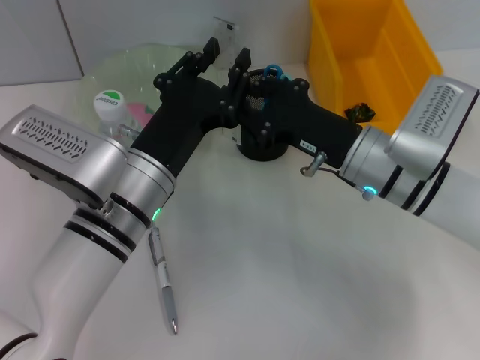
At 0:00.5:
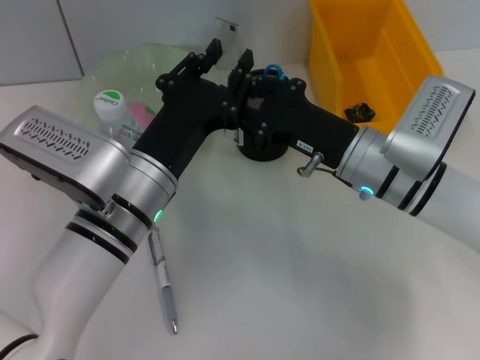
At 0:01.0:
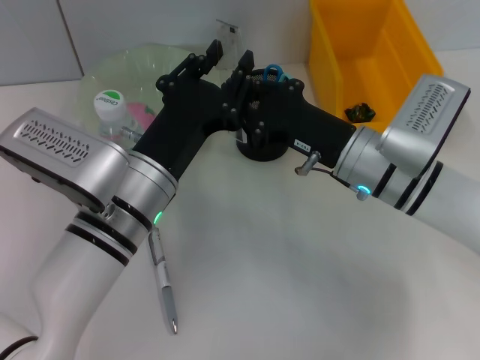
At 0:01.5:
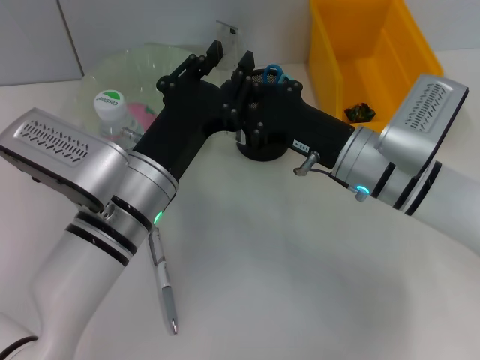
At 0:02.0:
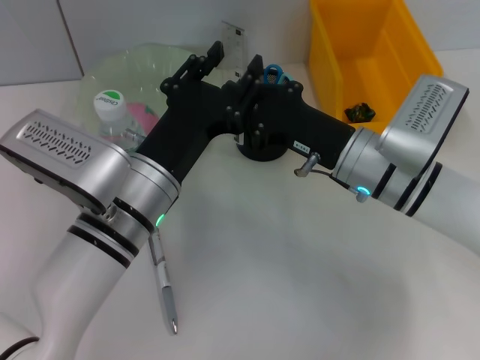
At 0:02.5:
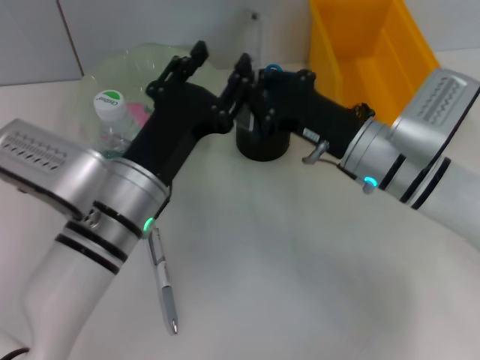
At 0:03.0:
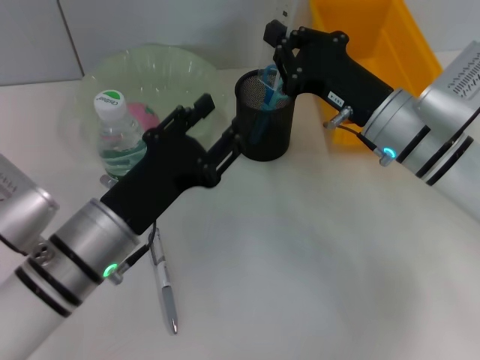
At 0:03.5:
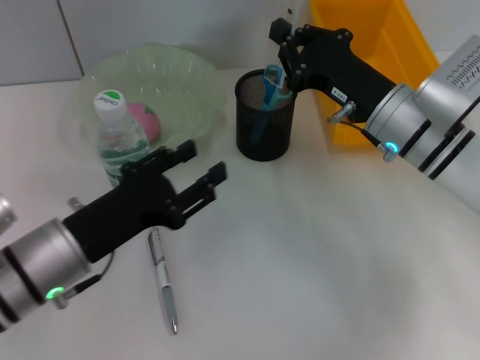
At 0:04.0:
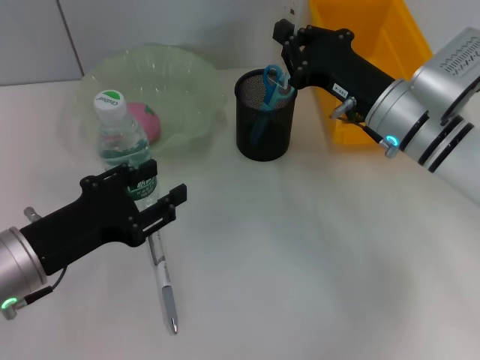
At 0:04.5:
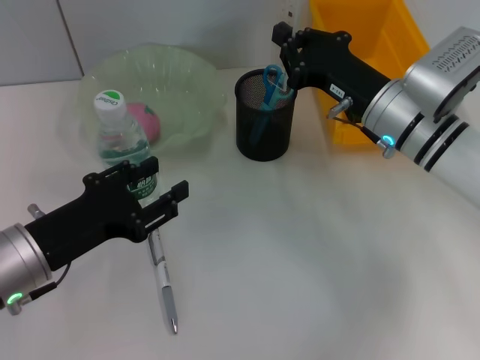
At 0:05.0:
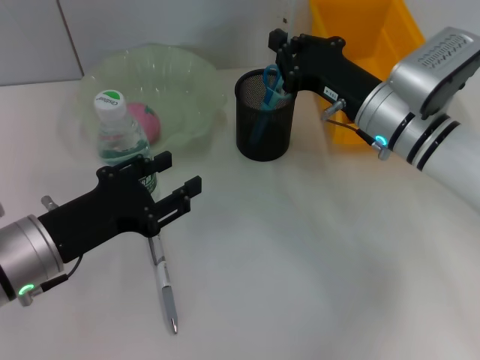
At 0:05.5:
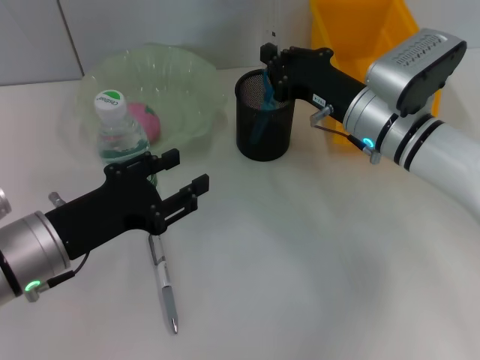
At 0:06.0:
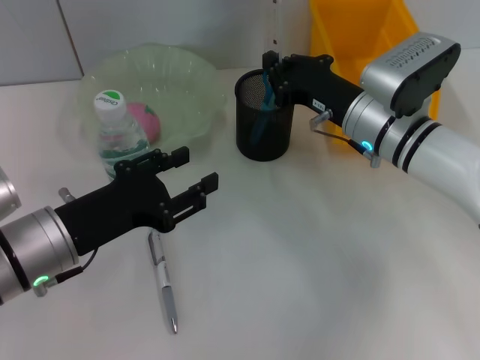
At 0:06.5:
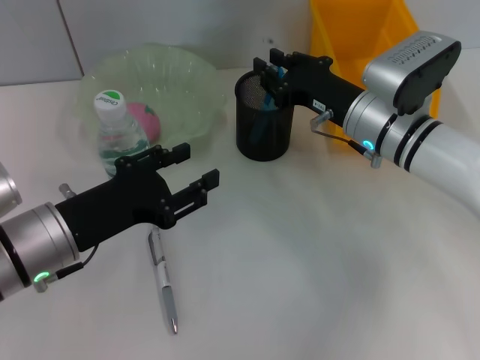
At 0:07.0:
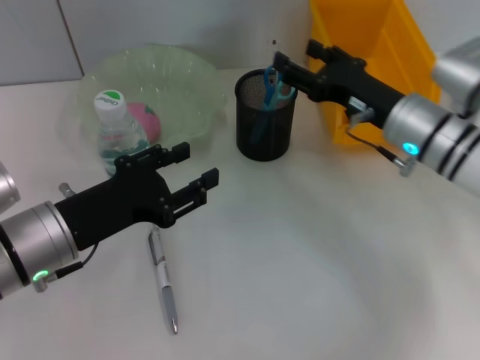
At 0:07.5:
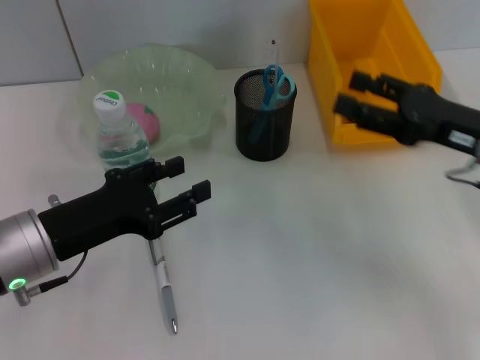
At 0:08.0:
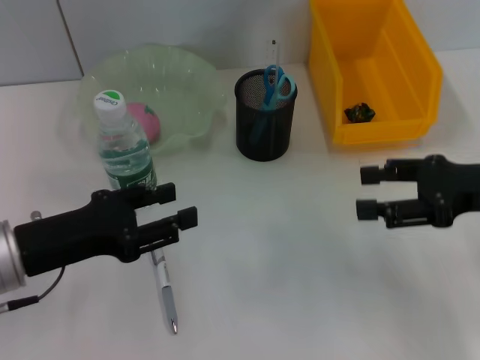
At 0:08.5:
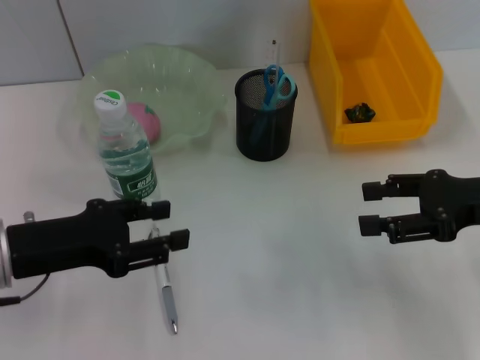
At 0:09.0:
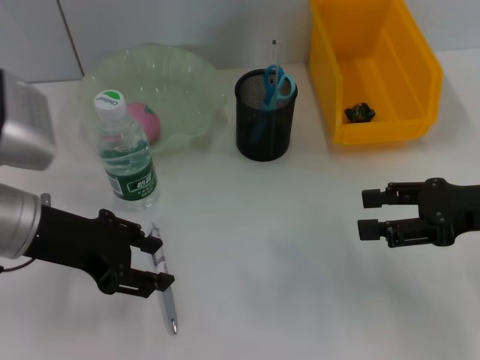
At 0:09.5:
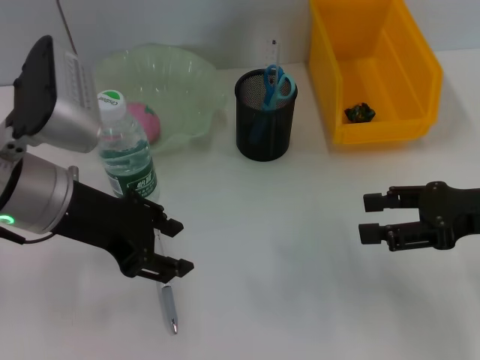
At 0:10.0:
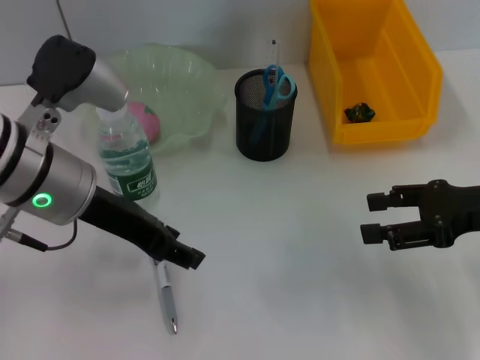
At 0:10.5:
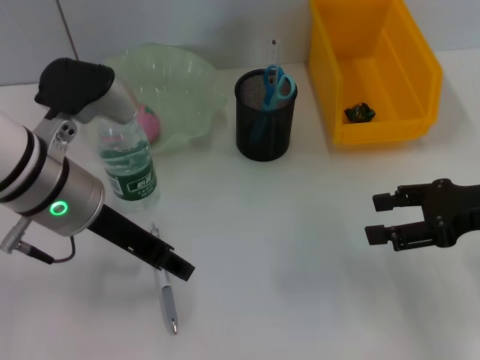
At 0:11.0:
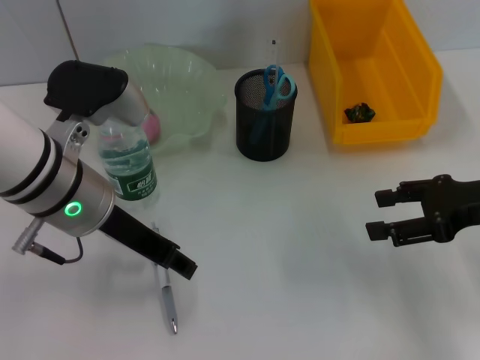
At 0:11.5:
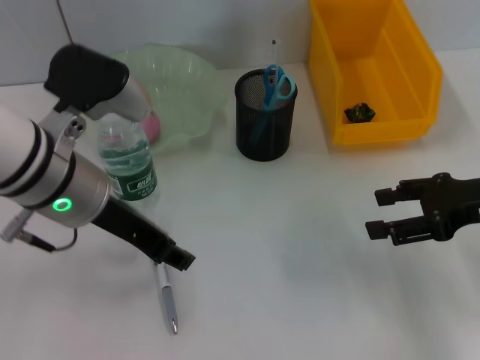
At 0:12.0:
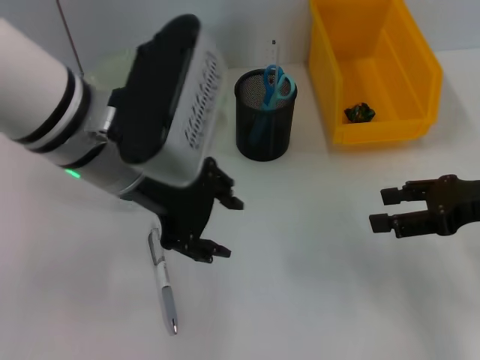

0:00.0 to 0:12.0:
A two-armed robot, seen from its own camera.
Step, 0:00.0 to 0:02.5: Pass the ruler from the left hand to the right hand.
Step, 0:03.0 to 0:06.5: Place the ruler into the pen holder with the right hand.
0:00.0 to 0:02.0: The right gripper closes its fingers.
0:02.0 to 0:04.0: The left gripper goes some 10 cm to the left, while the right gripper changes place by about 5 cm.
0:04.0 to 0:06.0: The grippers make only small movements.
0:06.0 to 0:08.0: The right gripper travels to the right, backward and upward by some 20 cm, and opens up.
0:08.0 to 0:10.0: The left gripper travels to the right, upward and forward by about 10 cm.
0:10.0 to 0:12.0: The left gripper shifts some 5 cm to the right.

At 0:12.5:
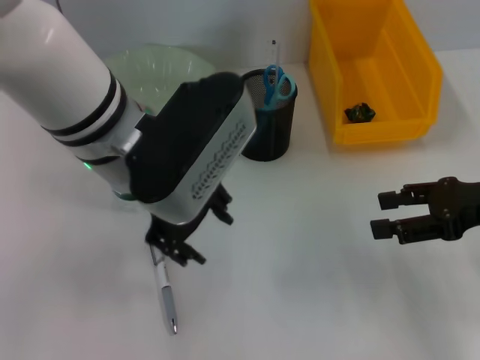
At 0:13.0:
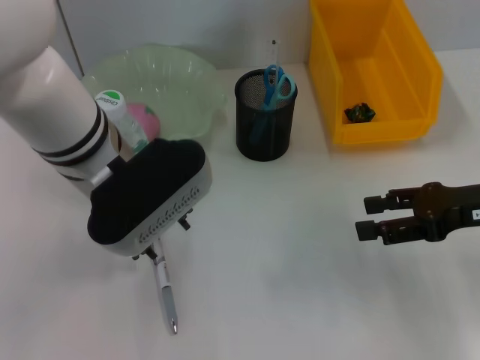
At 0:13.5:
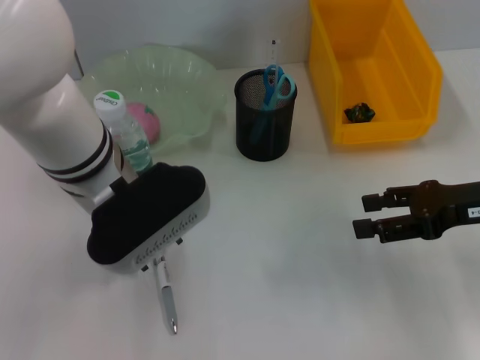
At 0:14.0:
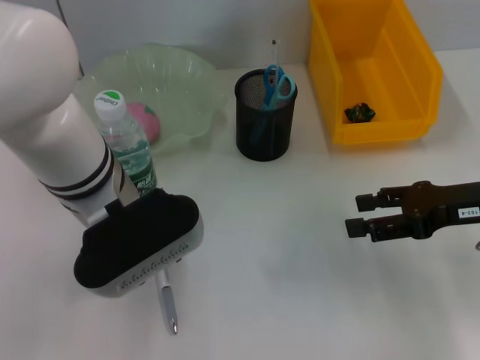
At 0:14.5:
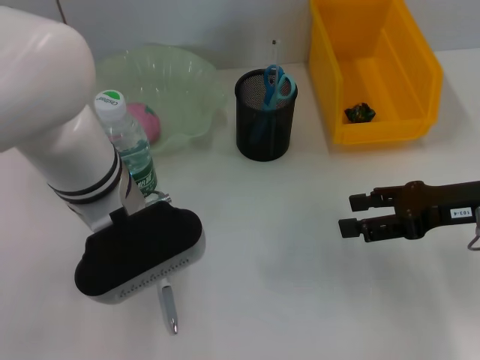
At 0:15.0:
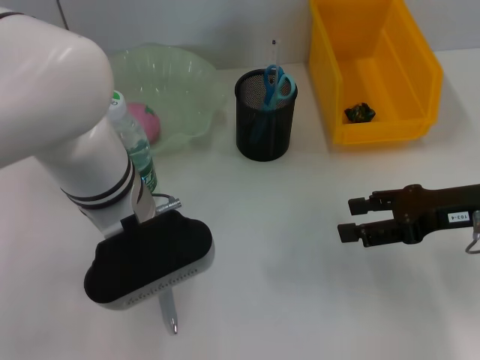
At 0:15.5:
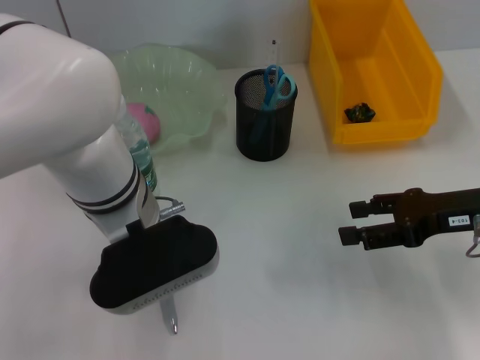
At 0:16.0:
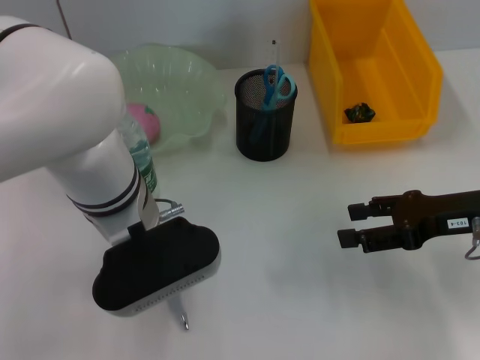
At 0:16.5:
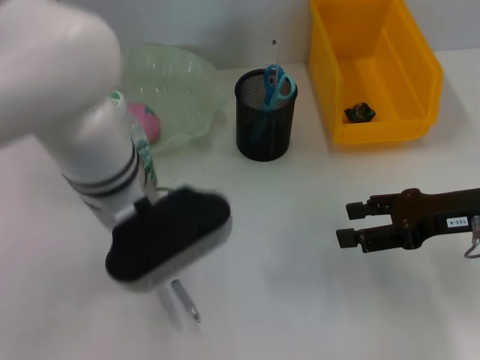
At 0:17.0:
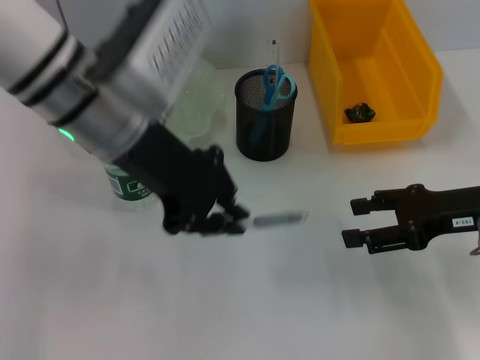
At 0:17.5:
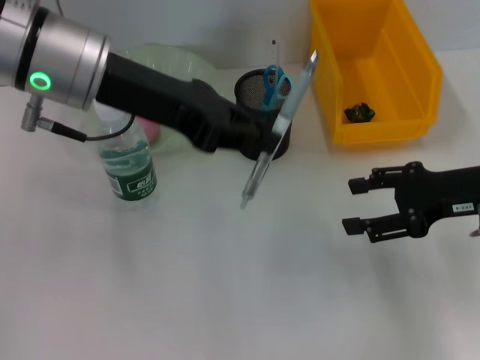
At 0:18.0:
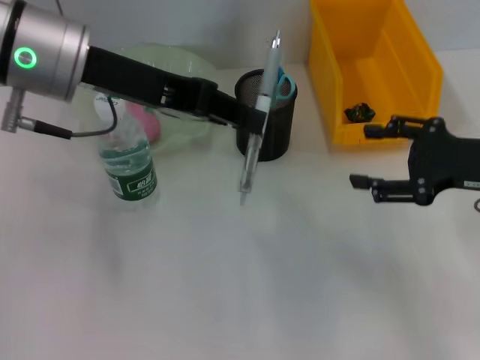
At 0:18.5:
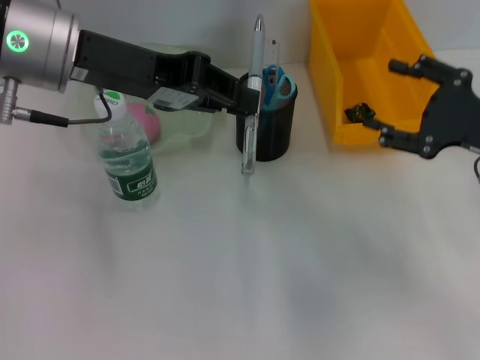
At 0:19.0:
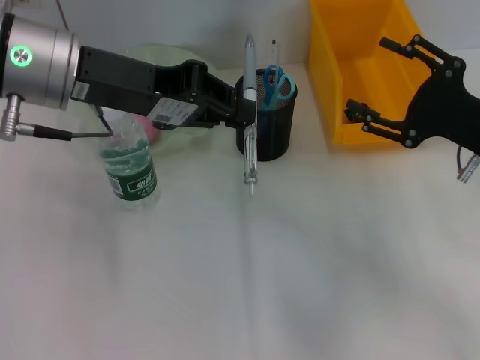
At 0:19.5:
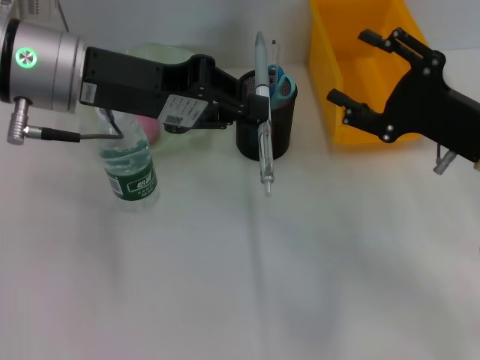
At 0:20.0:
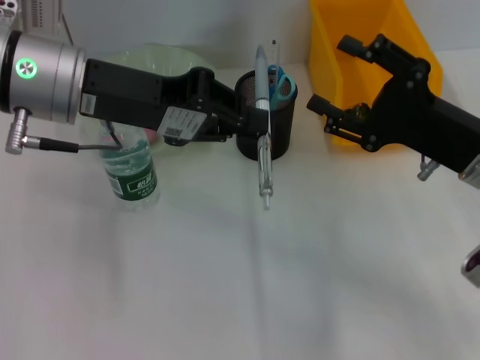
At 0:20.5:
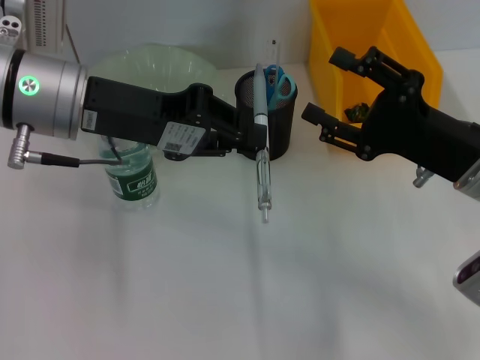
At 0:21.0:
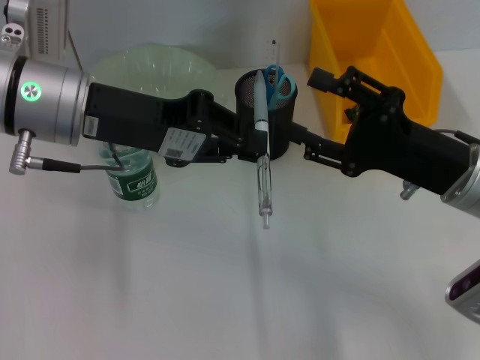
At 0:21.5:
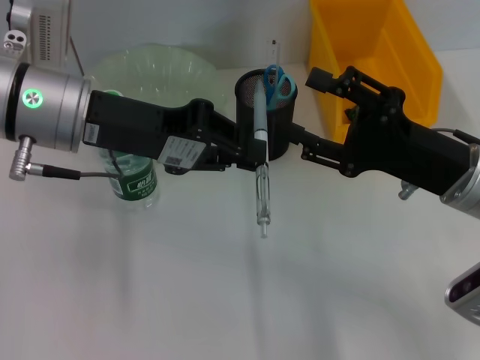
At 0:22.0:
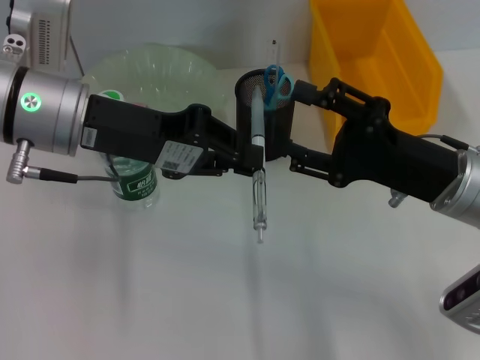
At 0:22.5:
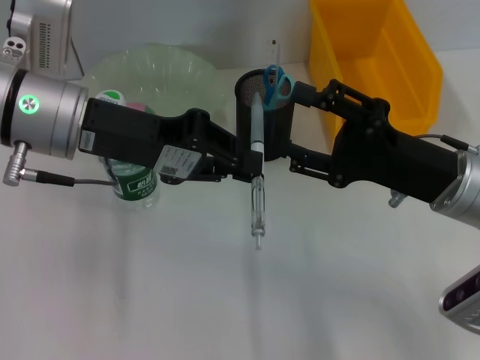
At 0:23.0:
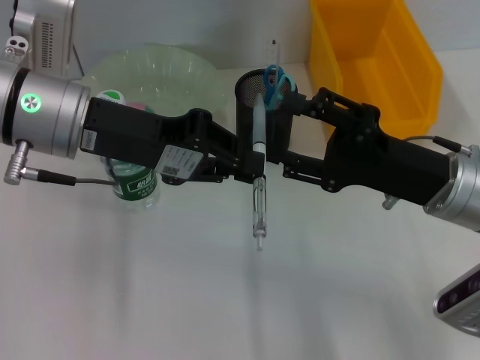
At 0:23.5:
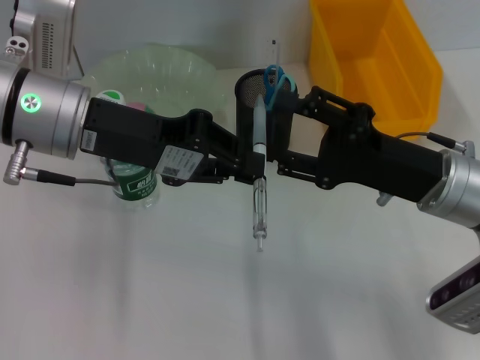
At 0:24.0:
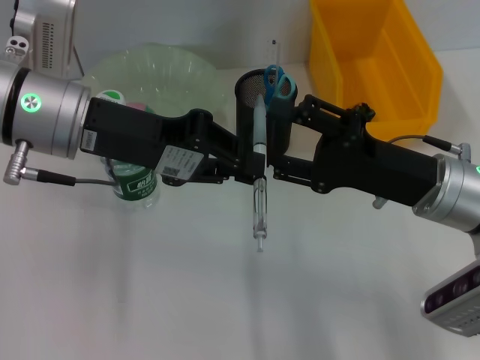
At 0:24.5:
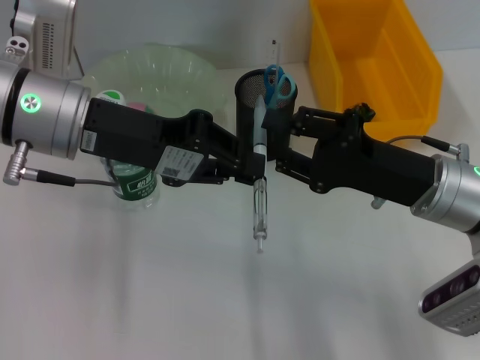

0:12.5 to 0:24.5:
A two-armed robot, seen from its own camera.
Step, 0:12.5 to 0:16.0: Grab the gray spring-action pen with the left hand.
0:12.5 to 0:14.5: The left gripper shifts about 5 cm downward.
0:14.5 to 0:16.5: The left gripper closes its fingers.
0:16.5 to 0:18.5: The left gripper heads upward and to the left, covering approximately 10 cm.
0:18.5 to 0:20.5: The right gripper travels to the left by some 5 cm.
0:22.5 to 0:24.5: There are only small adjustments of the grippers.

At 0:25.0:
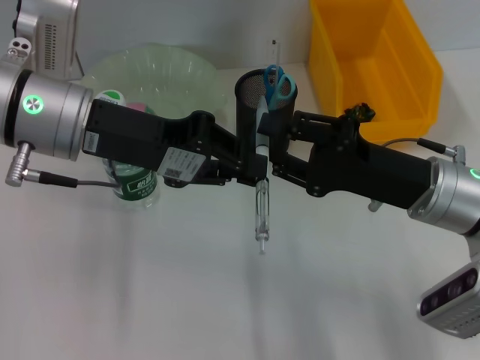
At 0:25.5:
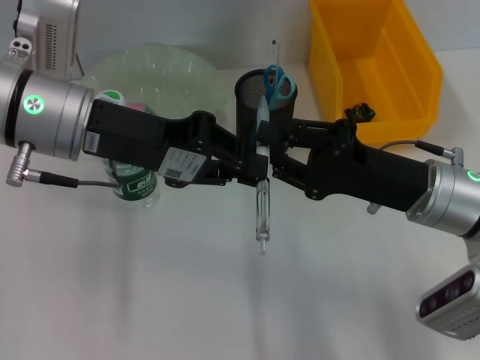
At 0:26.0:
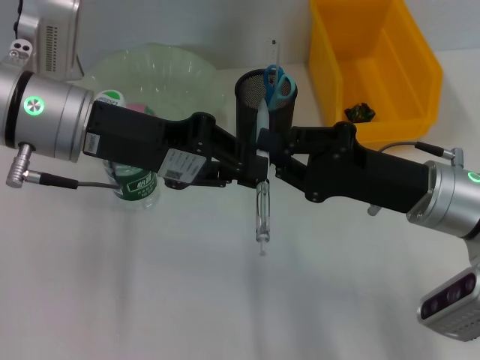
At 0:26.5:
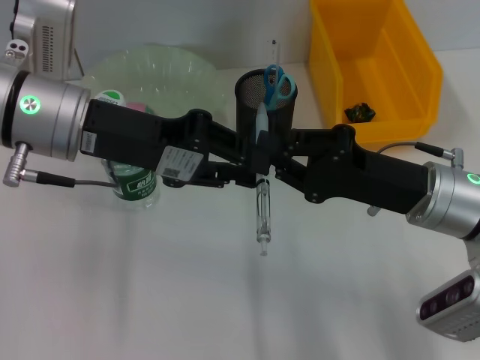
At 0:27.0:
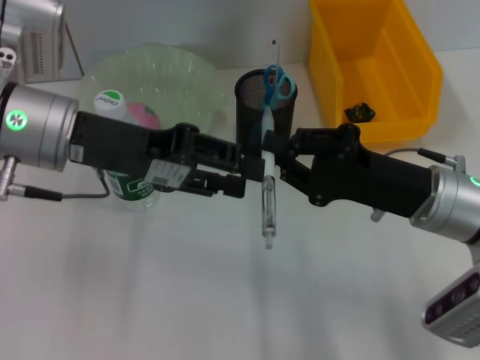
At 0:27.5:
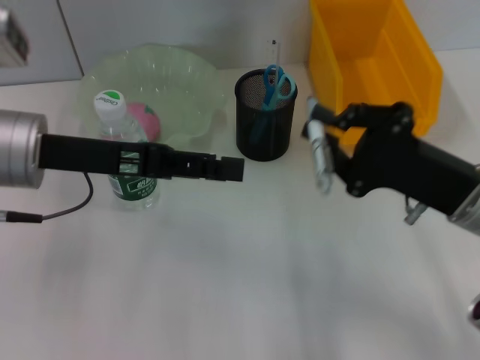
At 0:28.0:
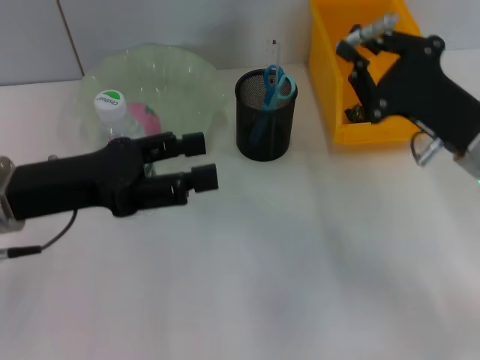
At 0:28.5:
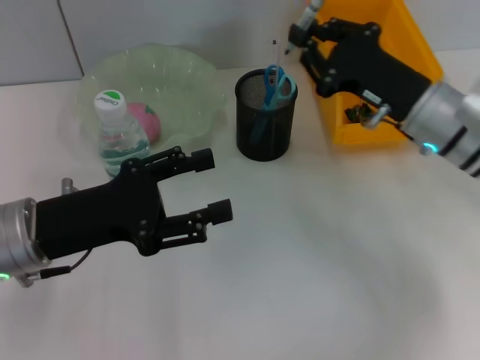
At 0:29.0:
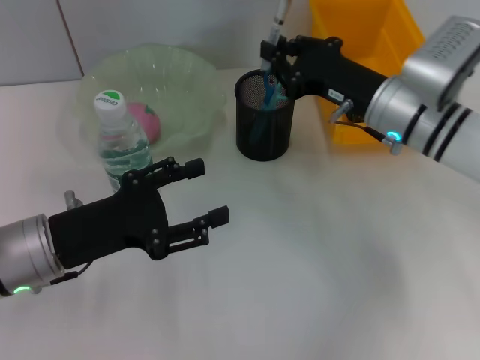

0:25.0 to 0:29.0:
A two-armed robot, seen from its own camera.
Step, 0:25.0 to 0:27.0: Pass the gray spring-action pen from the left hand to the right hand.
0:25.0 to 0:27.0: The grippers stay close to where they were, moving slightly.
0:27.0 to 0:29.0: The right gripper shifts some 10 cm forward. The left gripper moves downward and backward, some 15 cm, and opens its fingers.
